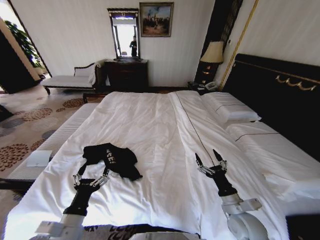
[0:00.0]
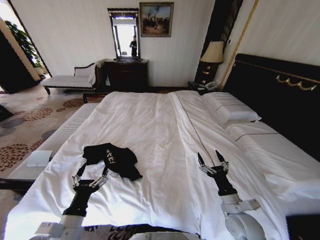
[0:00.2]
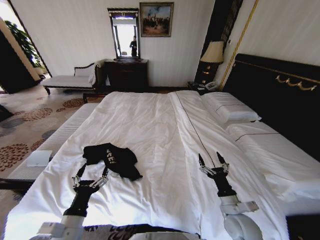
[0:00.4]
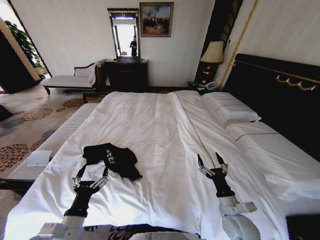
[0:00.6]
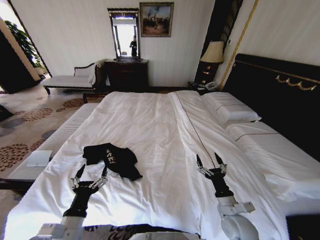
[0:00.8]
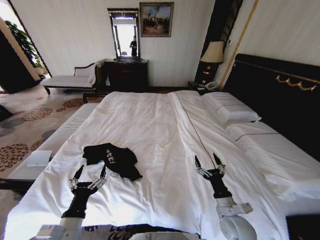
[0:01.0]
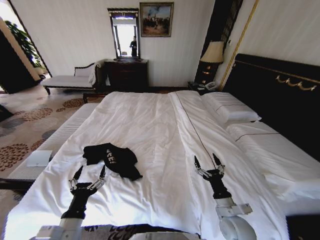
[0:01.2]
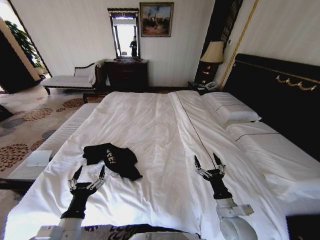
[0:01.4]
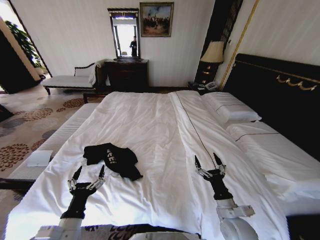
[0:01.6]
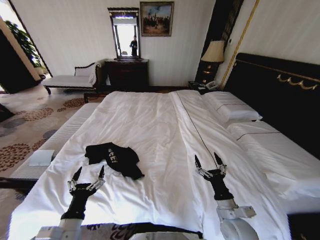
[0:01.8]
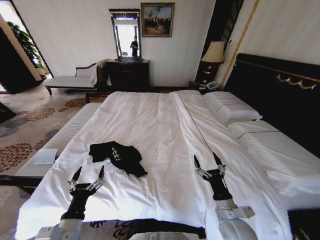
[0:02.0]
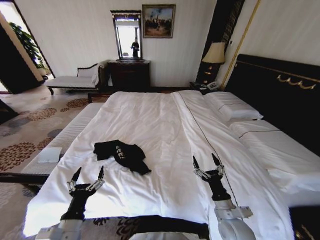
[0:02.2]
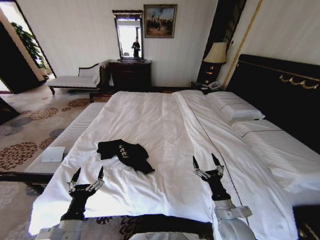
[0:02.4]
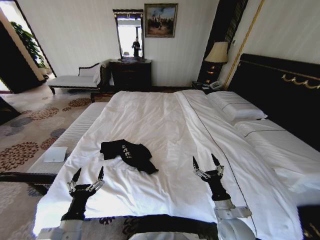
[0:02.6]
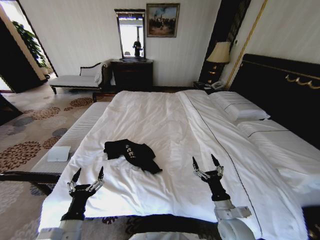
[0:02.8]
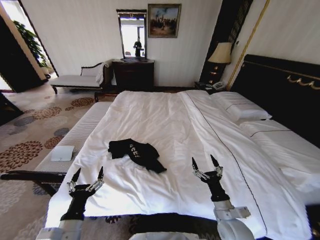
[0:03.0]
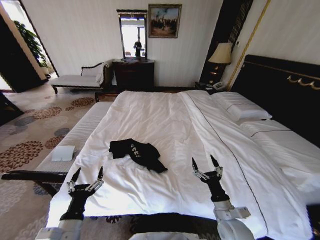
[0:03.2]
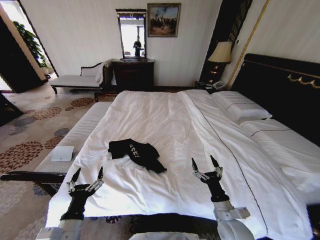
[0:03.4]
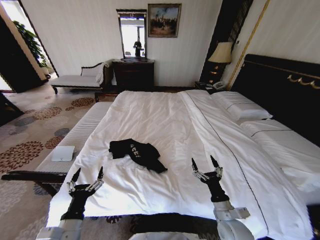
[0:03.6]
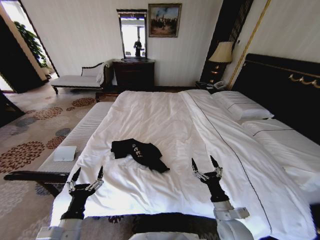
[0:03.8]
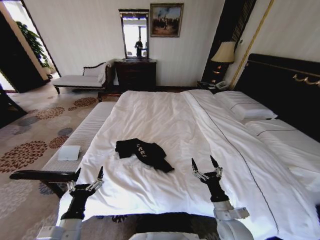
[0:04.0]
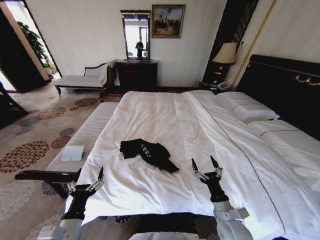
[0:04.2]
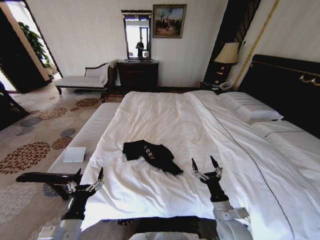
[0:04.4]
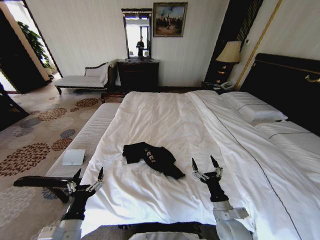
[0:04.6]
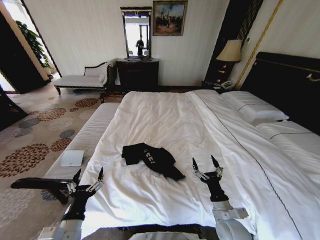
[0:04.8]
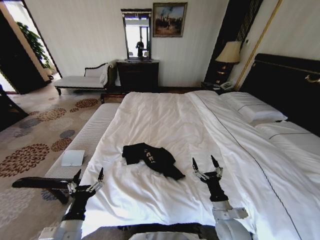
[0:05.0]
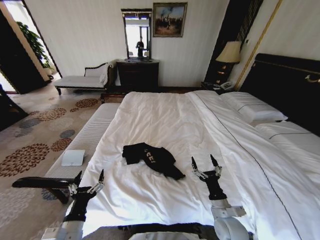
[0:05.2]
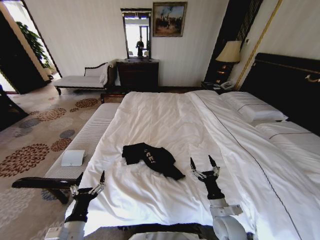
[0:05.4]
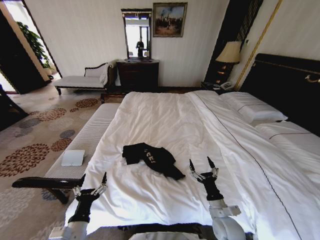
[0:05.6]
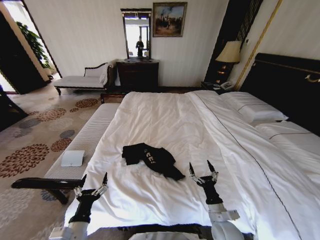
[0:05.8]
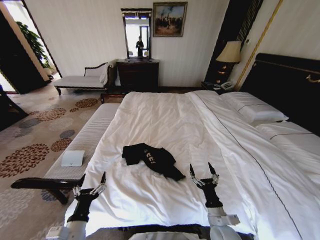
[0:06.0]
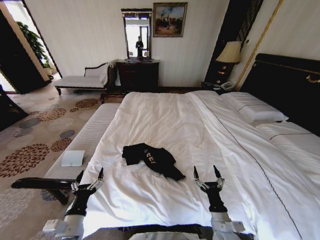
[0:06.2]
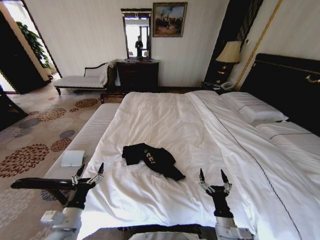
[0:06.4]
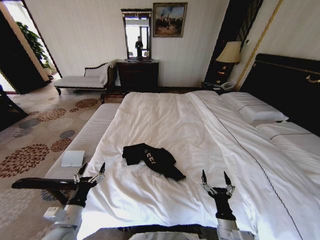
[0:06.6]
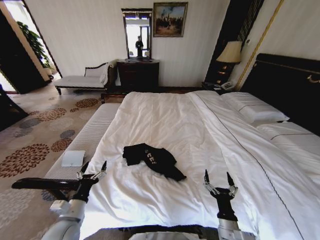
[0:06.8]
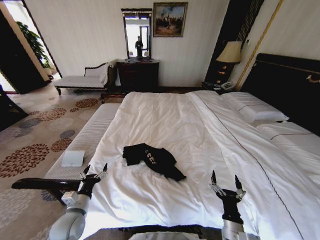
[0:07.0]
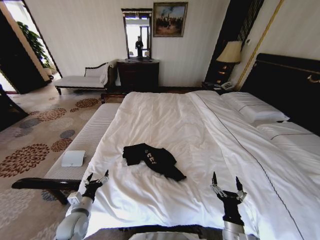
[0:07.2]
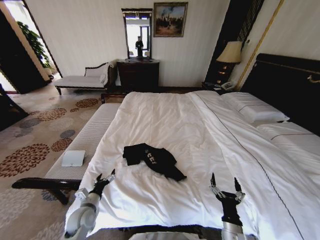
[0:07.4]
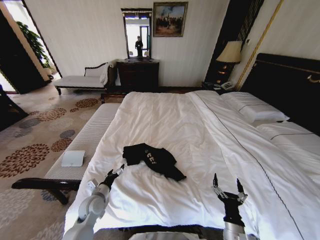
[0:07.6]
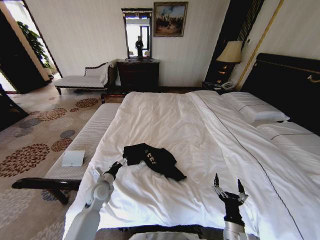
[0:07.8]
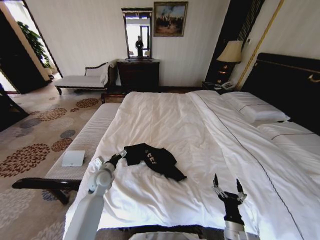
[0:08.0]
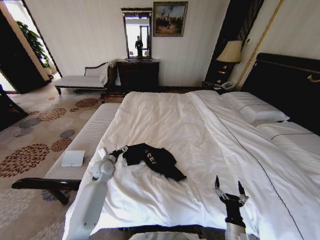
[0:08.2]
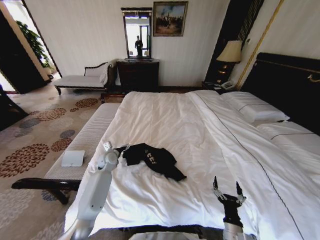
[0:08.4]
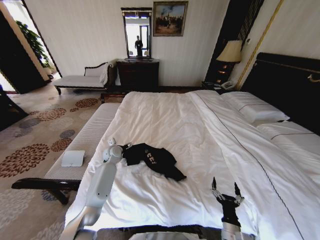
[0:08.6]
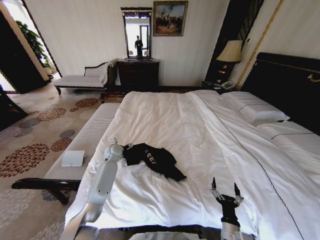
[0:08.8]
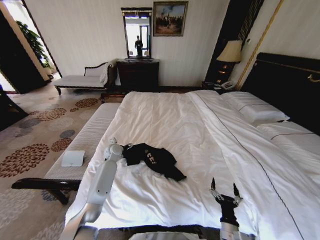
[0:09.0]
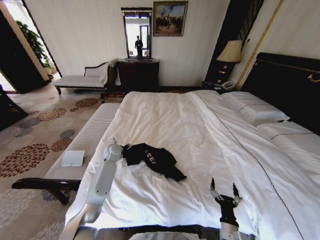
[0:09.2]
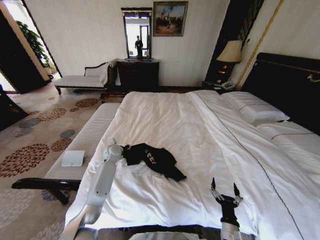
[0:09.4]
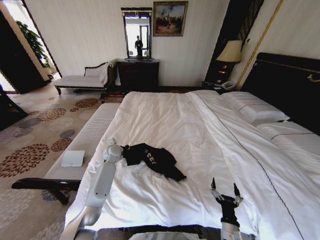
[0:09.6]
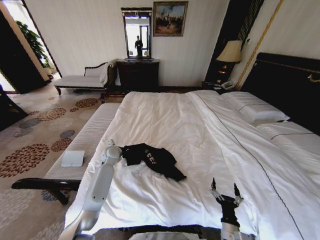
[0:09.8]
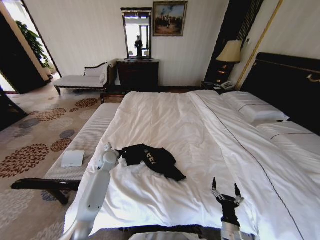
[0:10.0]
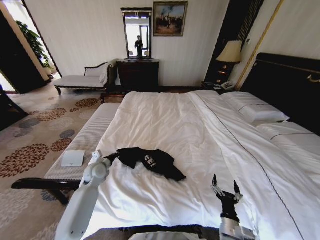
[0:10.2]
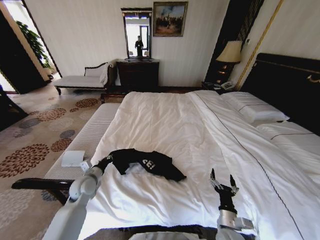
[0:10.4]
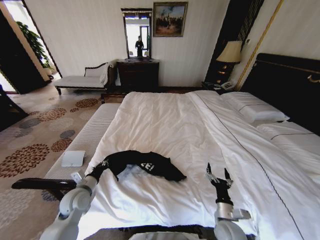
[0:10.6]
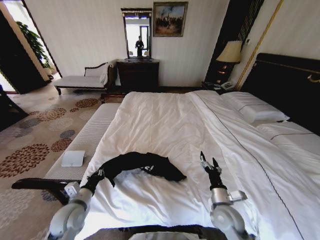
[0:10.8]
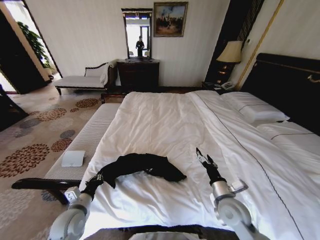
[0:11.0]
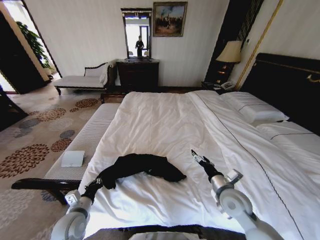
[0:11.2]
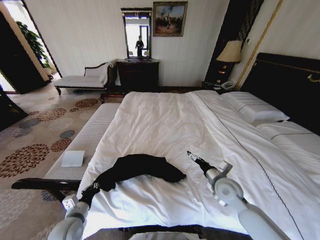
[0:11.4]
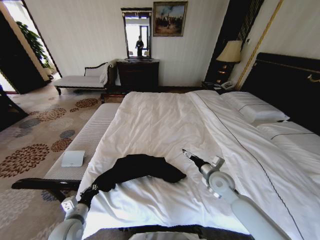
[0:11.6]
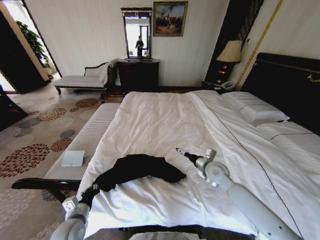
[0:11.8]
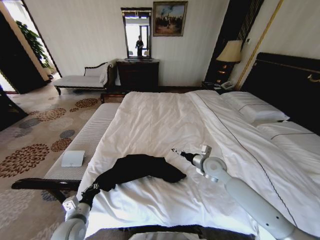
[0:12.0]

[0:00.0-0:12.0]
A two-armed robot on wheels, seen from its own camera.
Task of the whole recording: Fold the clothes on the bed.
0:00.0 to 0:01.6: The grippers stay close to where they were, moving slightly.
0:04.4 to 0:06.0: The grippers make only small movements.
0:06.0 to 0:07.6: The left gripper goes approximately 15 cm forward, while the right gripper heads backward, covering approximately 5 cm.
0:07.6 to 0:09.0: The left gripper travels forward by roughly 25 cm.
0:09.0 to 0:10.4: The left gripper shifts about 20 cm backward and to the left, and closes its fingers.
0:10.4 to 0:12.0: The left gripper heads backward, covering some 15 cm, while the right gripper shifts approximately 30 cm forward and upward.

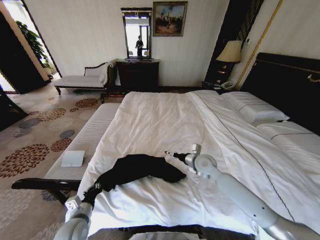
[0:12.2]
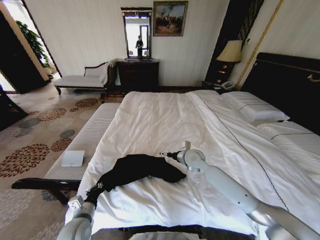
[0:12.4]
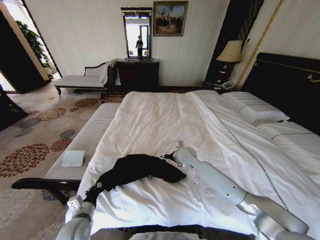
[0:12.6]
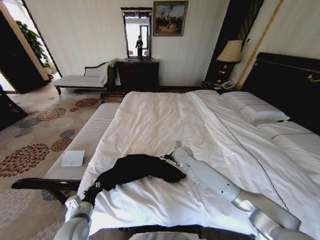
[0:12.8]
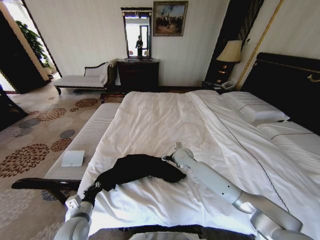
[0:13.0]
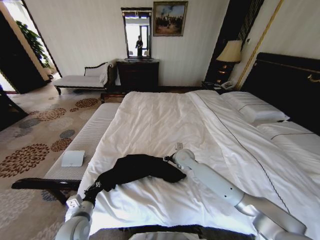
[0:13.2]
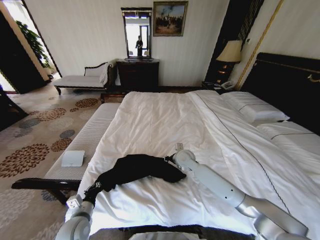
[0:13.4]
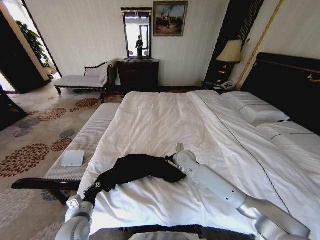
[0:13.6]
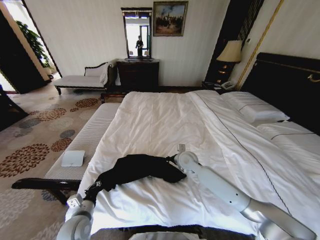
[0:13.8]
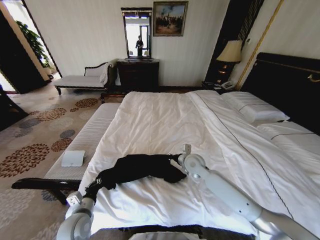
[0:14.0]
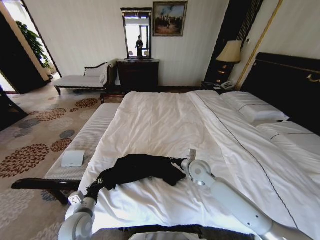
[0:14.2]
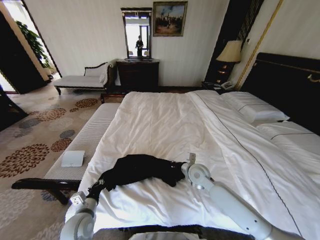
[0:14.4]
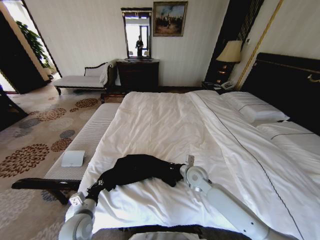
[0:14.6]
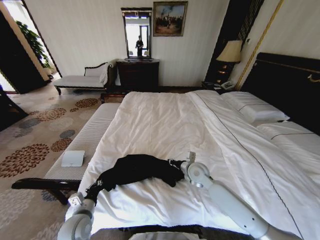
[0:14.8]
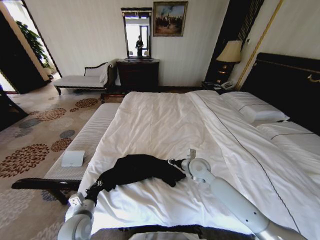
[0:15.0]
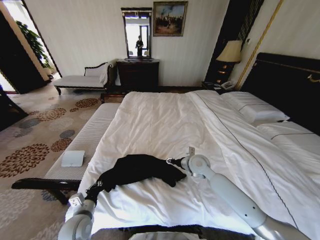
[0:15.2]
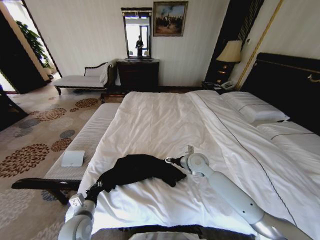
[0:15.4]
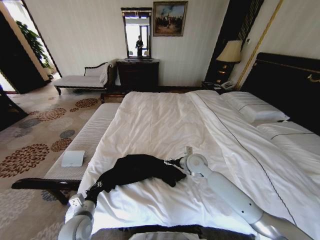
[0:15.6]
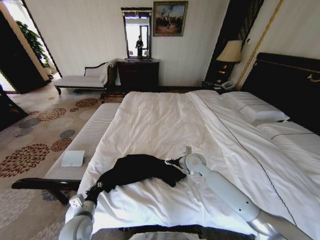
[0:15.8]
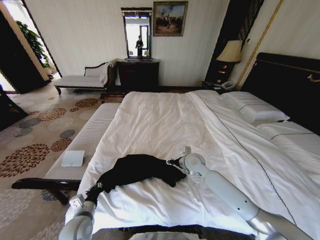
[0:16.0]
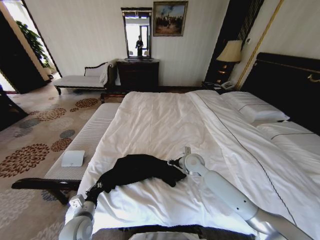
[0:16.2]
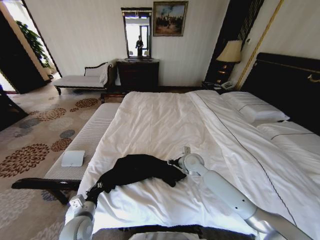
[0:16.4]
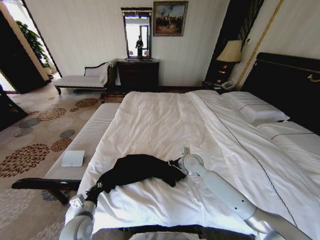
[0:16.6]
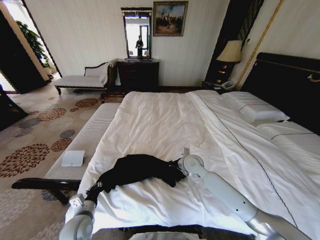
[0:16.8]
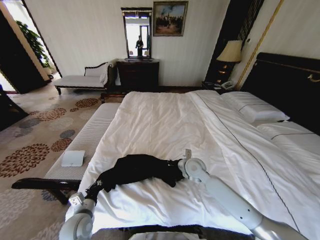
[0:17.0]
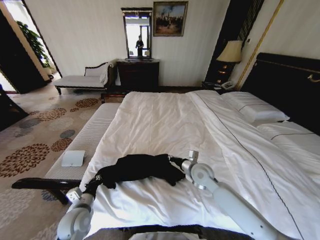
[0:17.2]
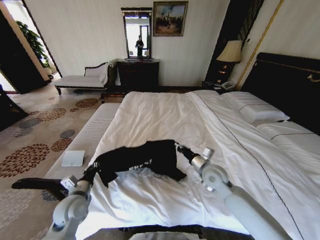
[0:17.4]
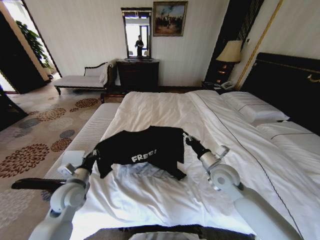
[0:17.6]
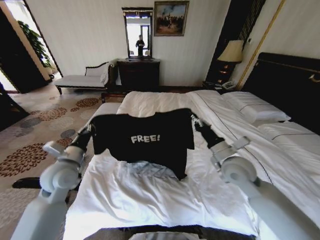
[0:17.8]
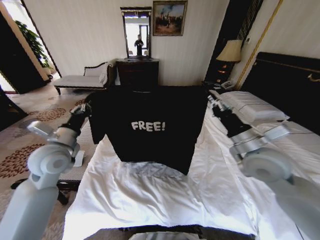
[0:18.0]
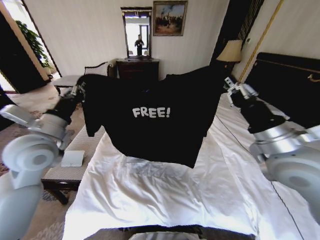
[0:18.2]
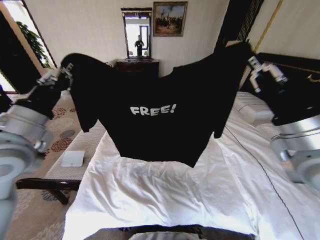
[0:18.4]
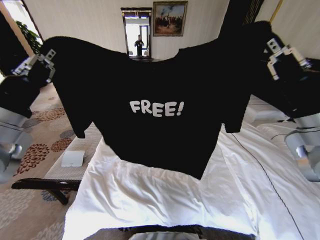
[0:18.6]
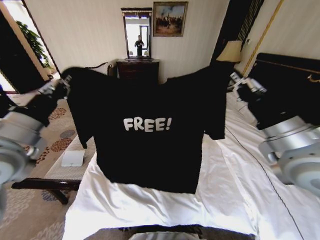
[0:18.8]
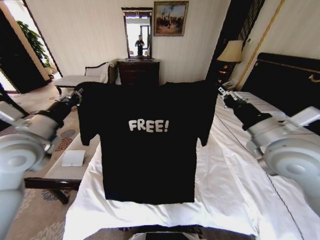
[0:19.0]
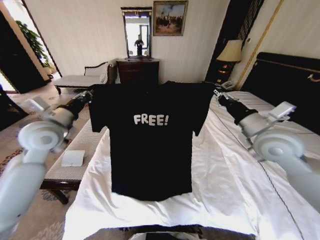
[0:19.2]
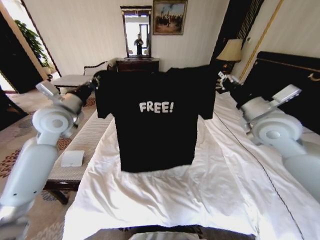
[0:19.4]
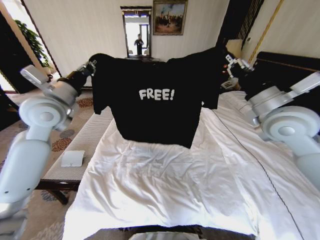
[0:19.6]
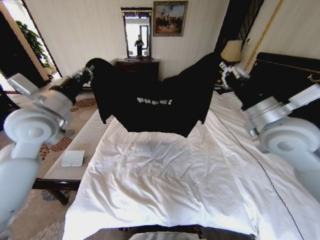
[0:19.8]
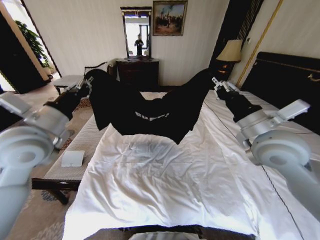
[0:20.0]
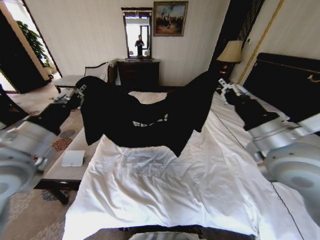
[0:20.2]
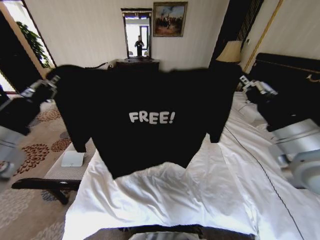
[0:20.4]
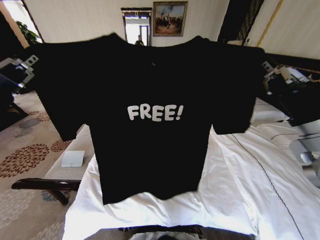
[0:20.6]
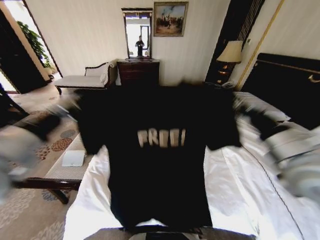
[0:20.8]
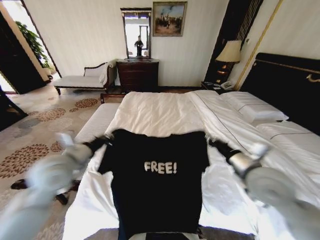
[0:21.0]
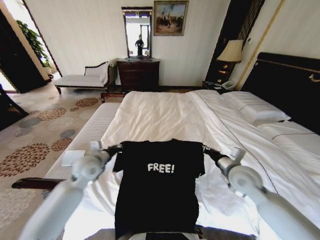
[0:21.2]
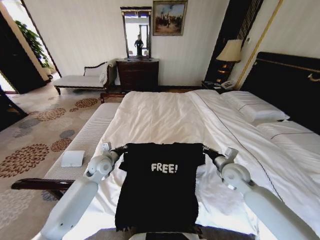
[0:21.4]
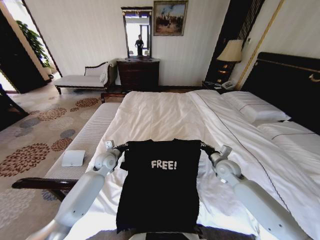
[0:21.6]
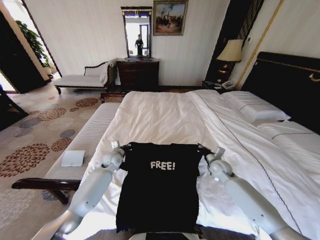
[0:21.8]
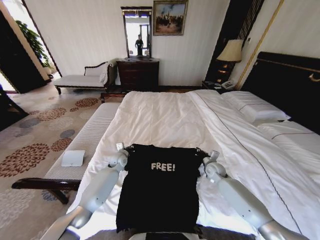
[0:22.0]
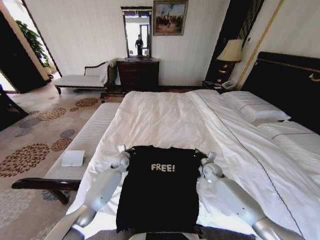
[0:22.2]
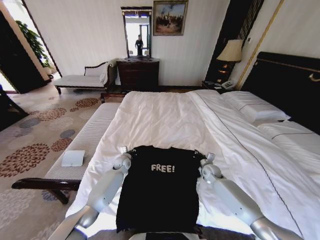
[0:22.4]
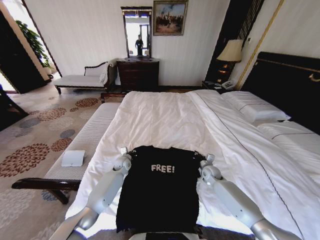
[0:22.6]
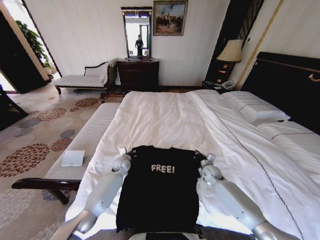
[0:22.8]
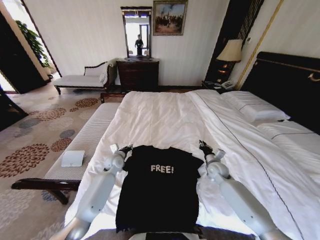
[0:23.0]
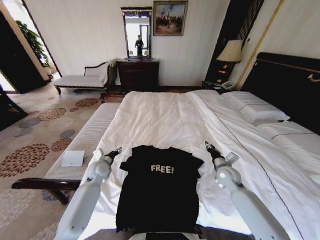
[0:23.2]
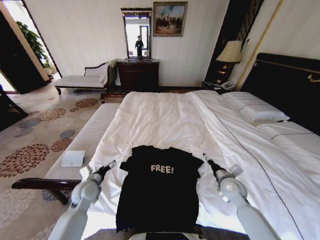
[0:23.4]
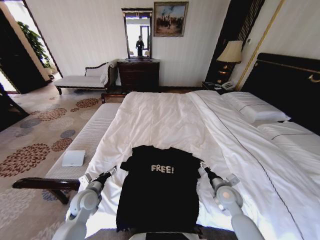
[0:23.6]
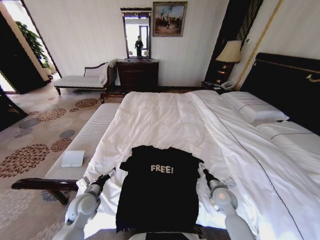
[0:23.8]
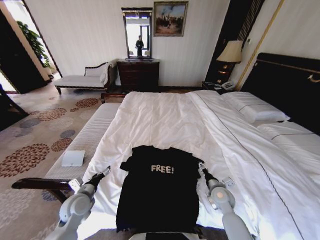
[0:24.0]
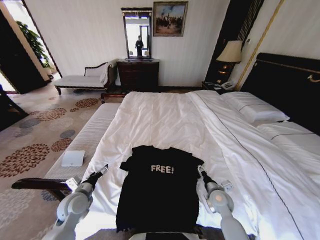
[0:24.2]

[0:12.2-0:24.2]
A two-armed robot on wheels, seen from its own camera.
Task of the whole recording: Fold the clothes on the bed.
0:12.2 to 0:13.8: The right gripper heads to the left, covering about 5 cm, and closes.
0:13.8 to 0:15.2: The right gripper opens its fingers.
0:15.2 to 0:16.6: The right gripper opens, then closes once more.
0:16.6 to 0:18.2: The right gripper goes approximately 30 cm upward, backward and to the right, while the left gripper is displaced upward by approximately 30 cm.
0:18.2 to 0:19.8: The right gripper moves forward, about 5 cm. The left gripper goes forward and backward, some 20 cm each way, reversing 2 times.
0:19.8 to 0:21.2: Both grippers travel together downward, roughly 20 cm.
0:21.2 to 0:22.6: The right gripper heads downward and forward, covering roughly 25 cm. The left gripper heads downward, forward and to the right, covering approximately 25 cm.
0:22.6 to 0:24.2: The right gripper heads backward, covering some 15 cm, and opens, while the left gripper travels backward and to the left by some 25 cm, and opens up.
